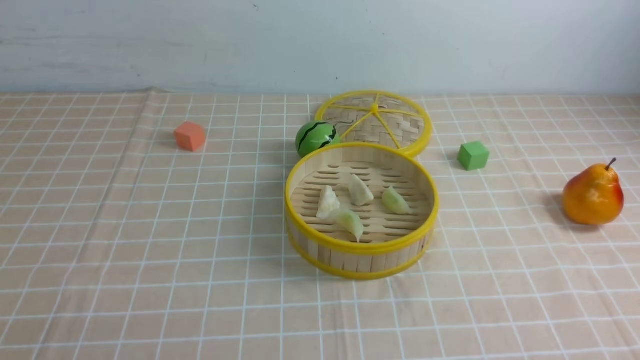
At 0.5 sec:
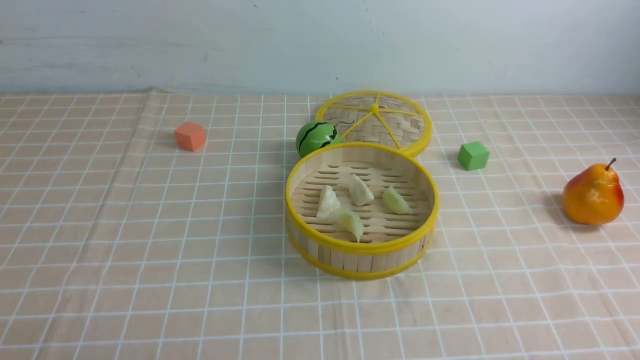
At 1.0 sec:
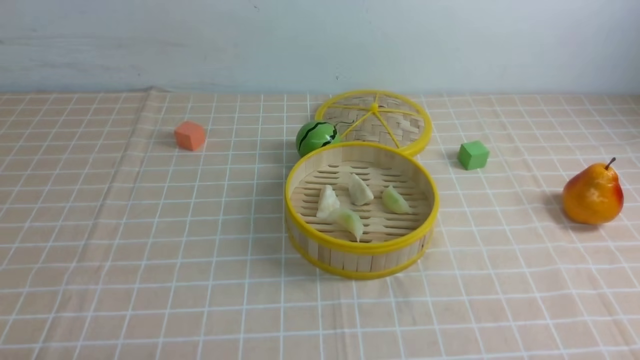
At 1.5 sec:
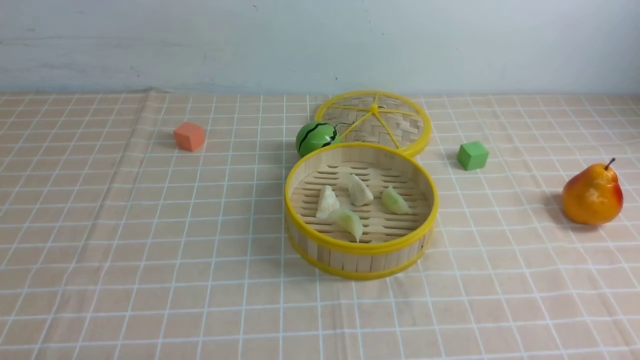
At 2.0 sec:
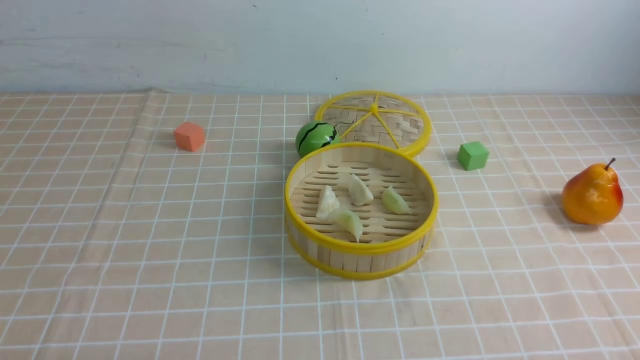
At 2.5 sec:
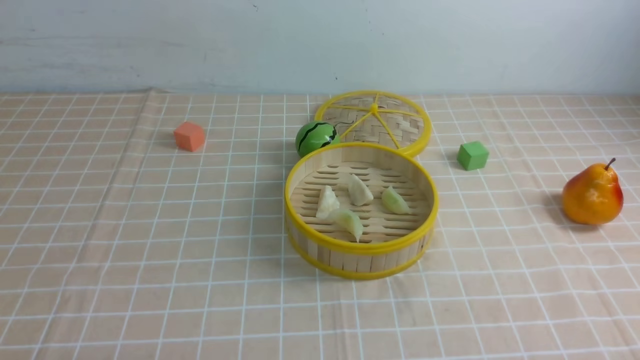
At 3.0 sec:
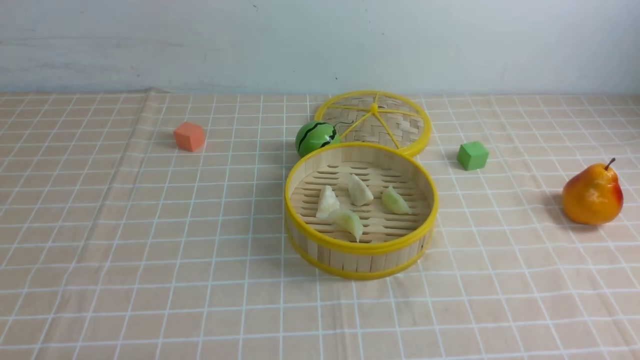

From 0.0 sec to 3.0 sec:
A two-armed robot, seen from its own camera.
Task of the whole recording: put the dumplings into the steamer on the table with the brown tablecloth.
From 1.5 sec to 3.0 sec: Neither gripper changes place.
